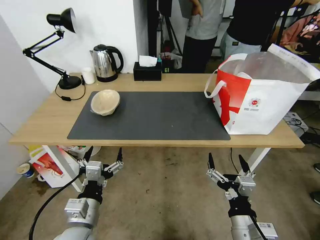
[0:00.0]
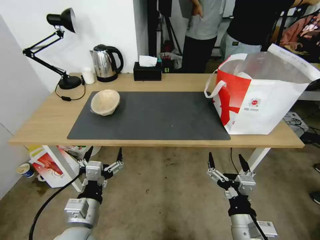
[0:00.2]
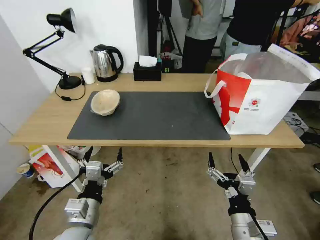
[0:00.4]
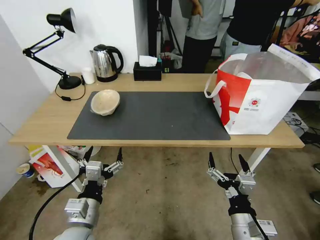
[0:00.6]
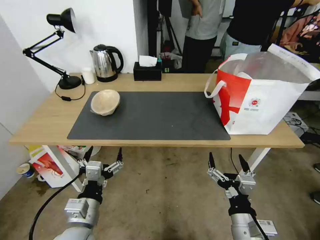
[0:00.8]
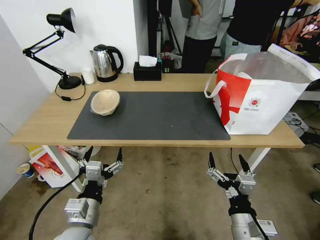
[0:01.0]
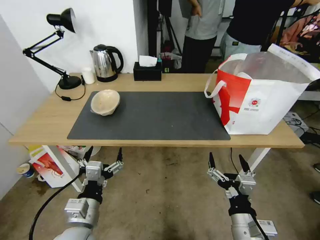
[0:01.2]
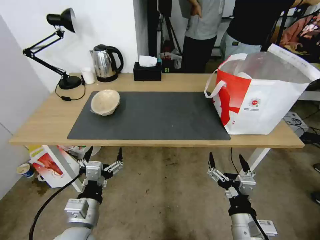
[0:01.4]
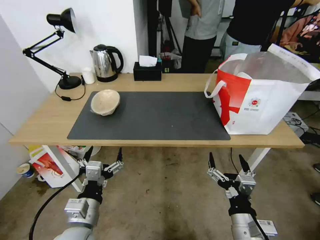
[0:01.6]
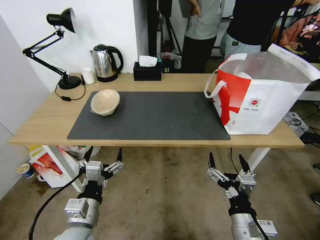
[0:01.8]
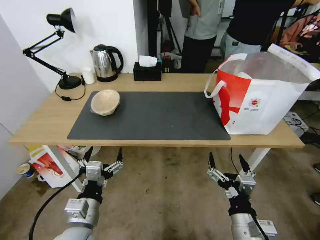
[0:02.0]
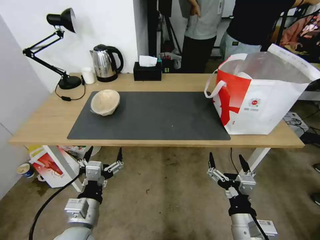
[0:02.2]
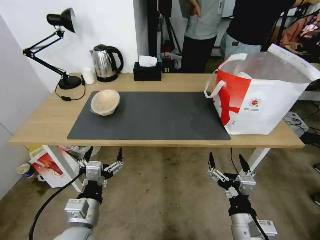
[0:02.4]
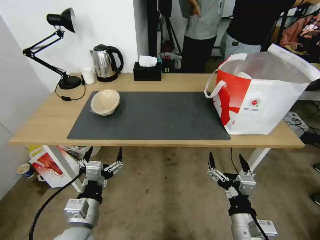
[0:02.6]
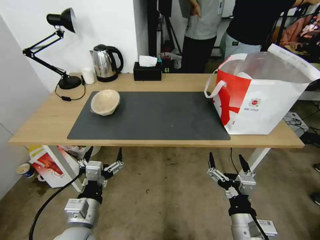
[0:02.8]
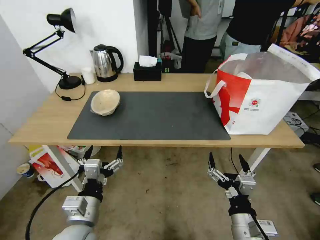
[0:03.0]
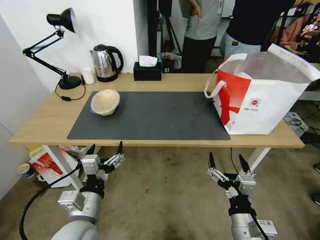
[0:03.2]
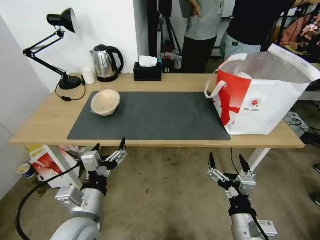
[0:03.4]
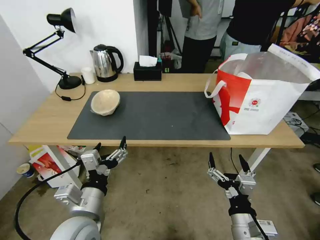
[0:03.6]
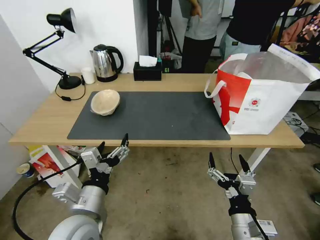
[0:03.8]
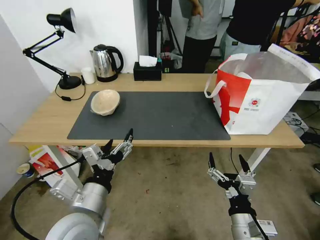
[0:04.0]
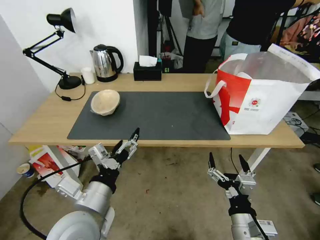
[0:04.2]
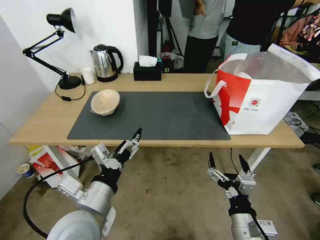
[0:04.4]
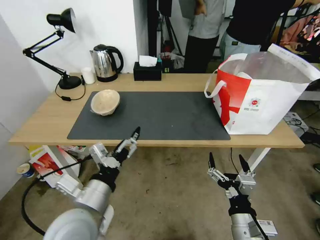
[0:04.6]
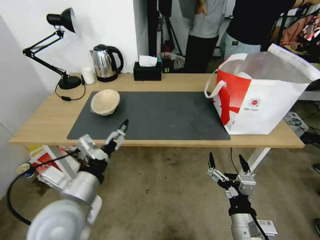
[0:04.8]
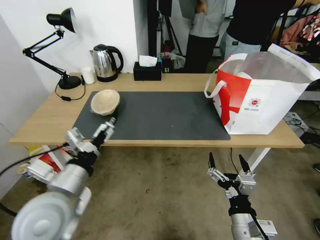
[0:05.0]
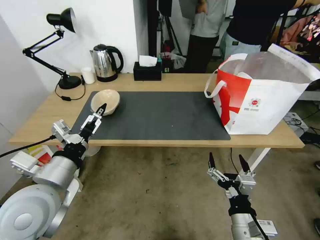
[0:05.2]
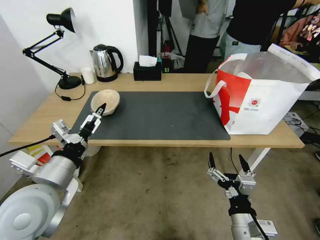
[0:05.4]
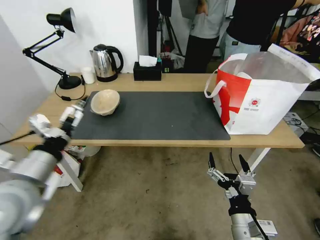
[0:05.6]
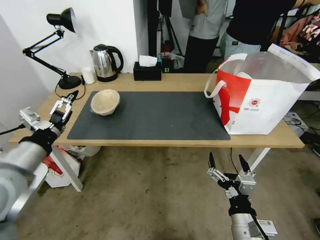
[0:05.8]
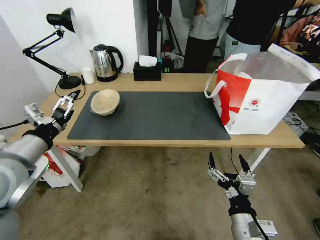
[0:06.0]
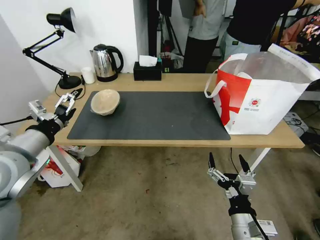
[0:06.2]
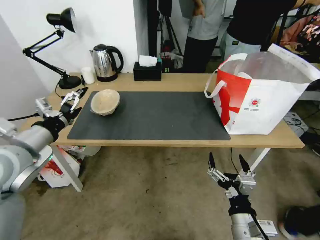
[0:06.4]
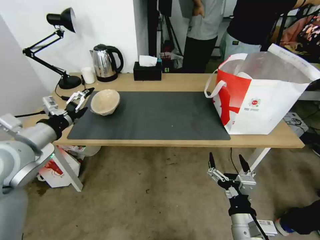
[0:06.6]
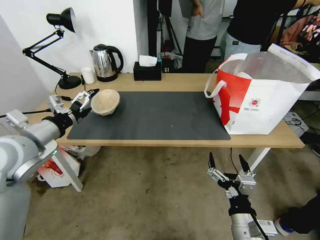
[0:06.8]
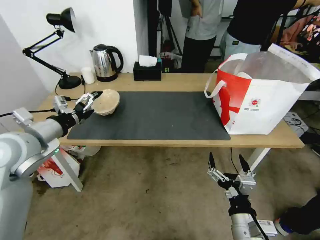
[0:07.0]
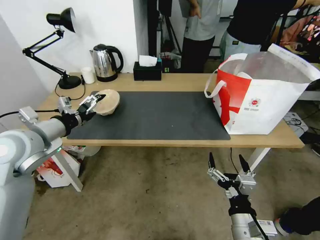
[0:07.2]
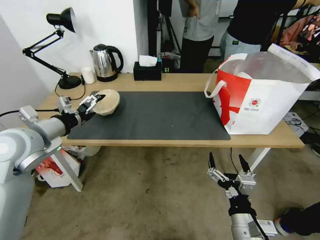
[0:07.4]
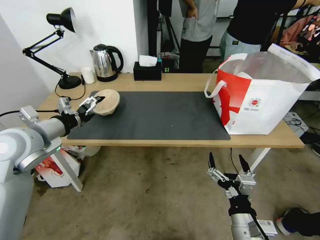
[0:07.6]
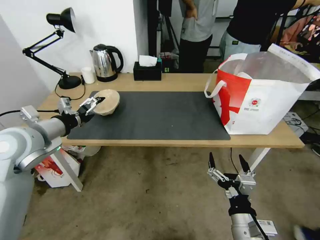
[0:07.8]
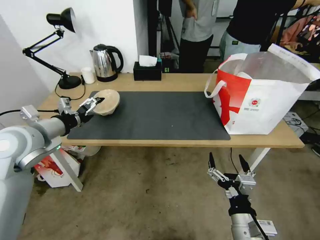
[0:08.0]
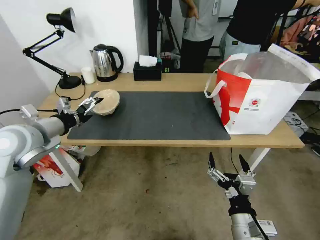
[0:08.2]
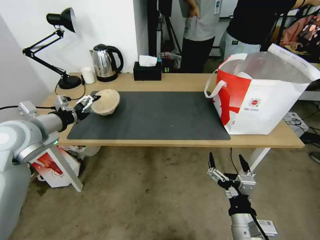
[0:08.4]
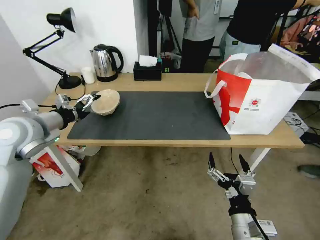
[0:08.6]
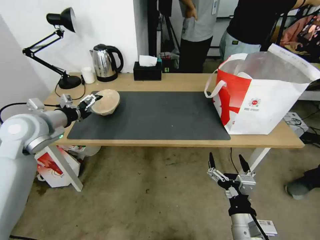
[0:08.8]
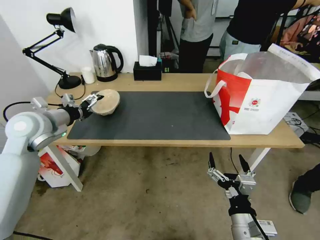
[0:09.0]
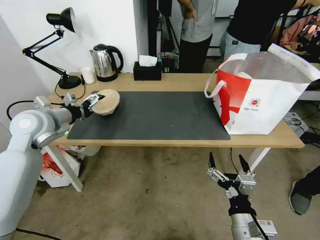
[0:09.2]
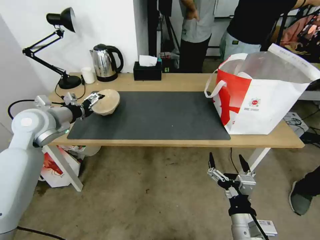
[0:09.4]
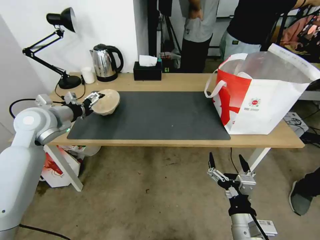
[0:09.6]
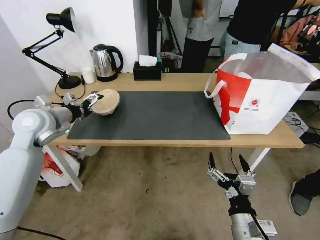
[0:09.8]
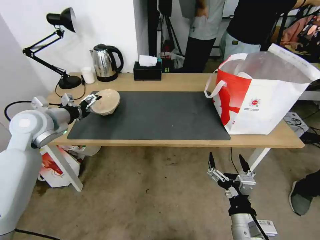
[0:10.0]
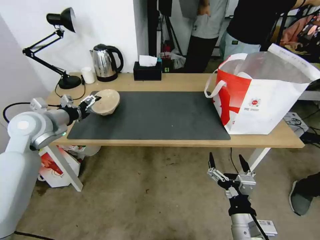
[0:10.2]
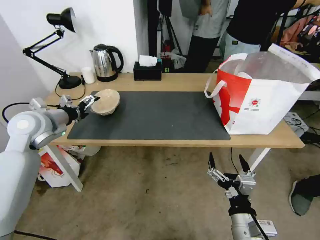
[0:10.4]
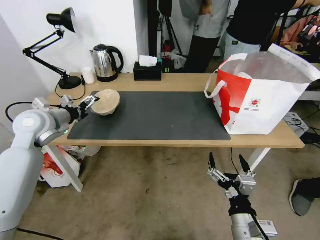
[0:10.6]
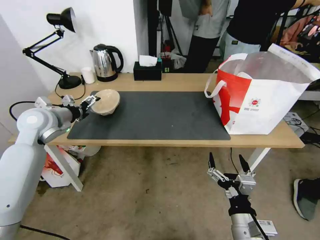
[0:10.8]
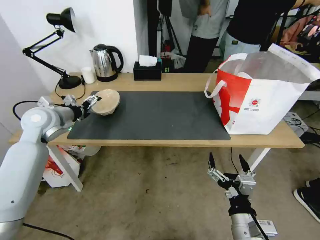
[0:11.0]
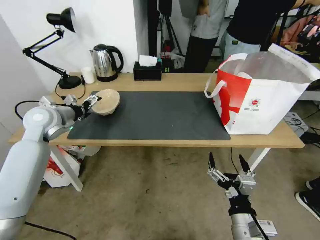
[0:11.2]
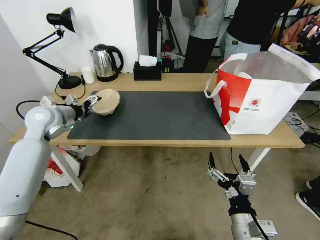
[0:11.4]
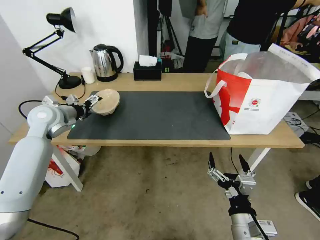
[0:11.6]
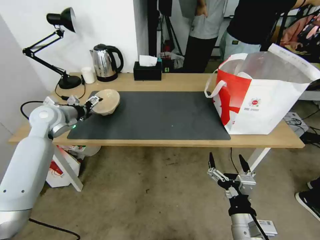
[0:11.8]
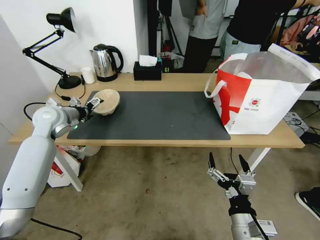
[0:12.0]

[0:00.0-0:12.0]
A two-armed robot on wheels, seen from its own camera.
Task of the whole recording: Pick up the trash from the table and place it into the takeout bag.
0:00.0 to 0:03.0: The two grippers keep their place.
0:03.0 to 0:04.4: The left gripper travels upward by roughly 10 cm.
0:04.4 to 0:06.0: The left gripper shifts approximately 20 cm to the left, upward and forward.
0:06.0 to 0:07.6: The left gripper is displaced forward by some 10 cm.
0:07.6 to 0:09.0: The left gripper goes about 5 cm forward.
0:09.0 to 0:10.4: The grippers move only a little.
0:10.4 to 0:12.0: The left gripper is displaced forward by roughly 5 cm.

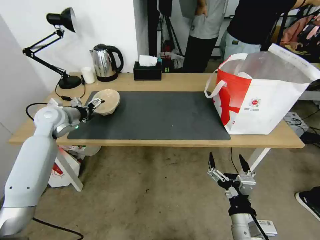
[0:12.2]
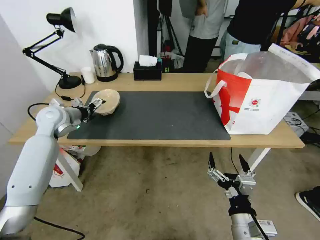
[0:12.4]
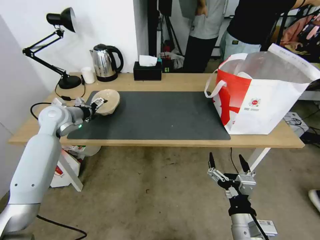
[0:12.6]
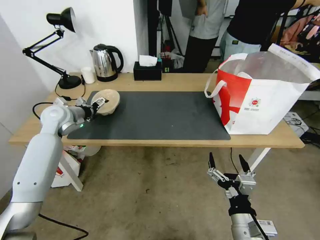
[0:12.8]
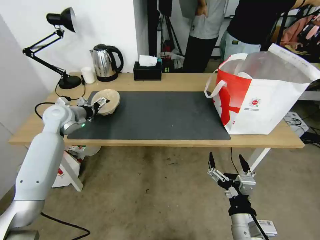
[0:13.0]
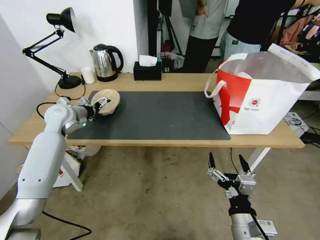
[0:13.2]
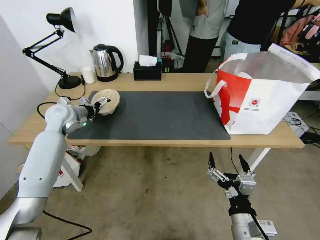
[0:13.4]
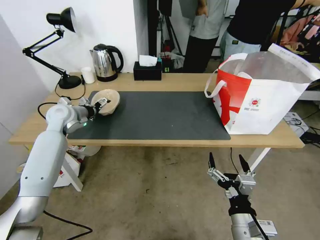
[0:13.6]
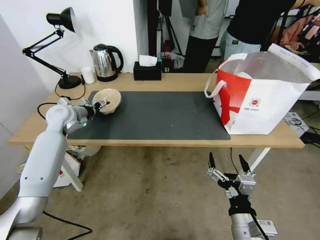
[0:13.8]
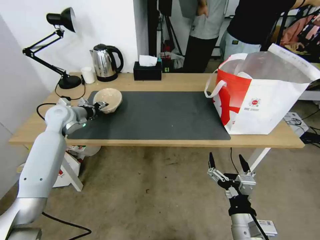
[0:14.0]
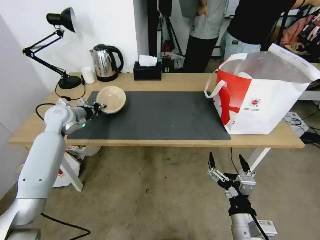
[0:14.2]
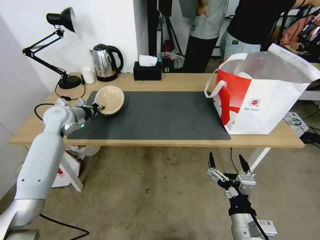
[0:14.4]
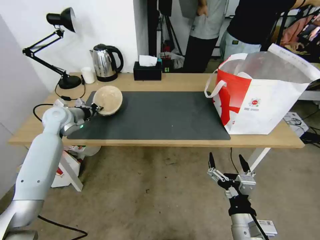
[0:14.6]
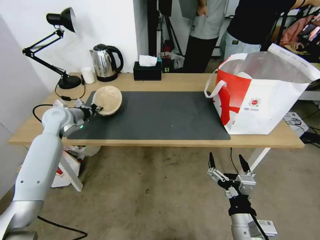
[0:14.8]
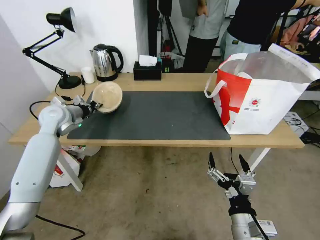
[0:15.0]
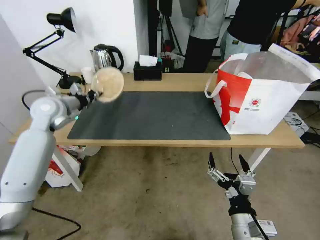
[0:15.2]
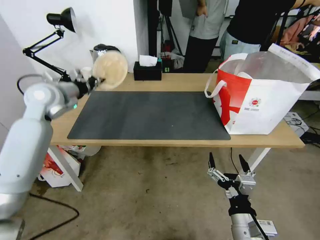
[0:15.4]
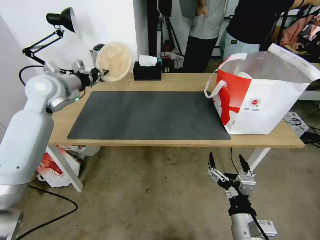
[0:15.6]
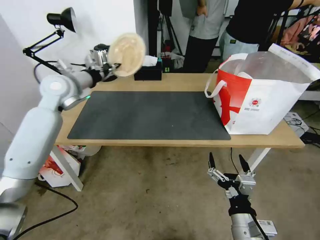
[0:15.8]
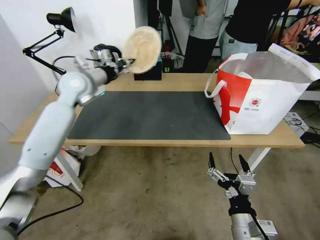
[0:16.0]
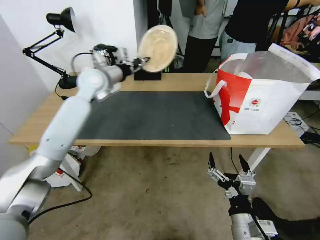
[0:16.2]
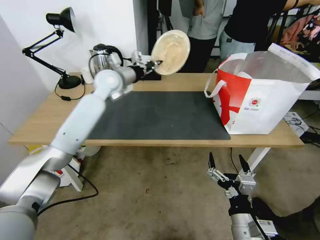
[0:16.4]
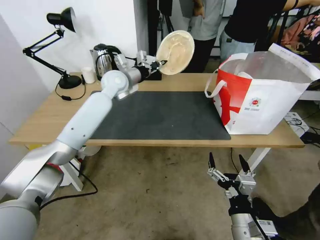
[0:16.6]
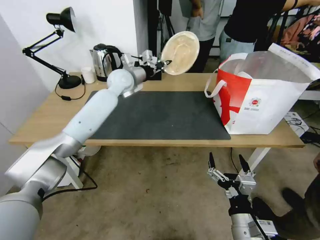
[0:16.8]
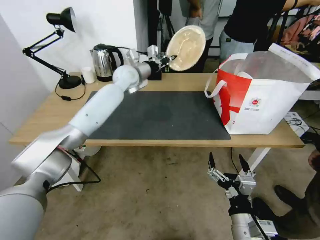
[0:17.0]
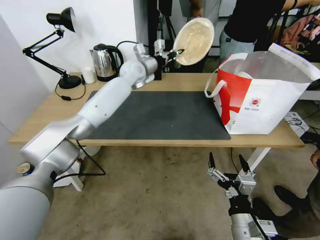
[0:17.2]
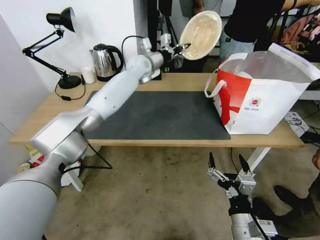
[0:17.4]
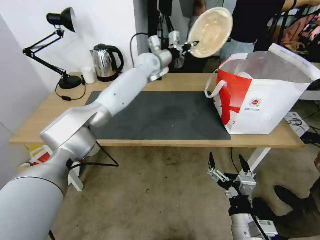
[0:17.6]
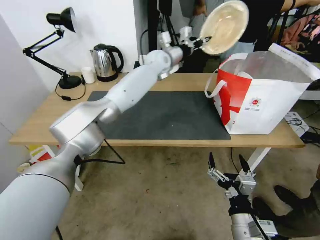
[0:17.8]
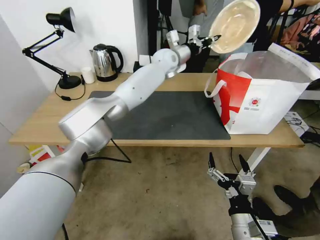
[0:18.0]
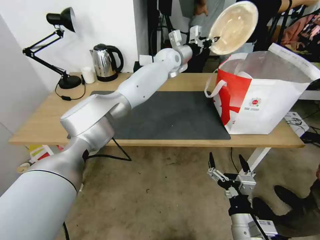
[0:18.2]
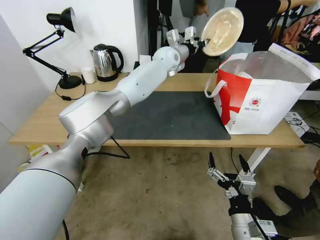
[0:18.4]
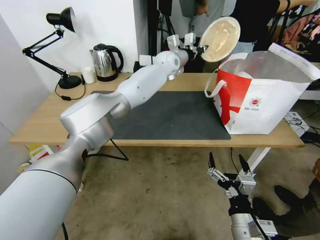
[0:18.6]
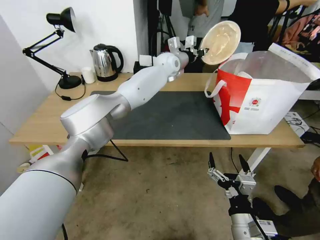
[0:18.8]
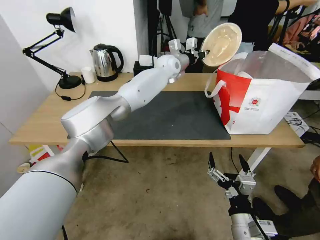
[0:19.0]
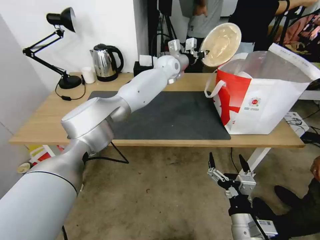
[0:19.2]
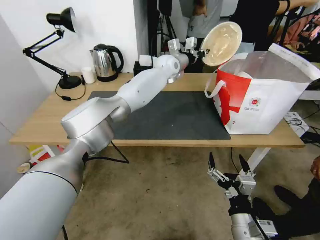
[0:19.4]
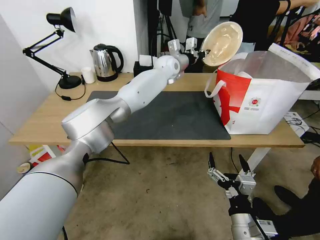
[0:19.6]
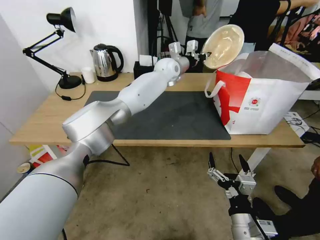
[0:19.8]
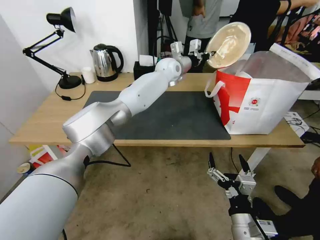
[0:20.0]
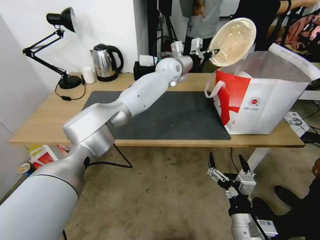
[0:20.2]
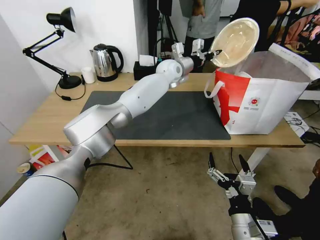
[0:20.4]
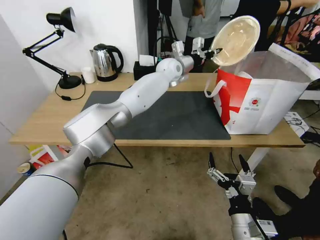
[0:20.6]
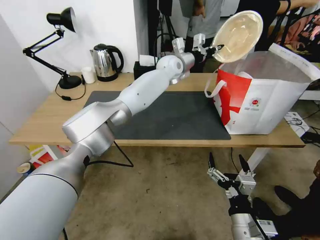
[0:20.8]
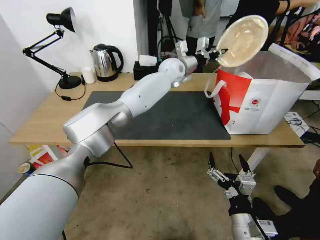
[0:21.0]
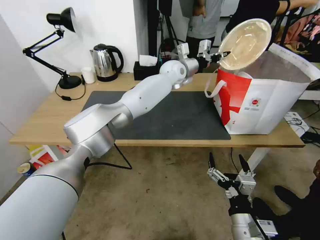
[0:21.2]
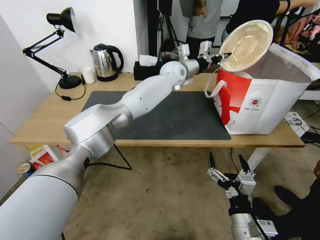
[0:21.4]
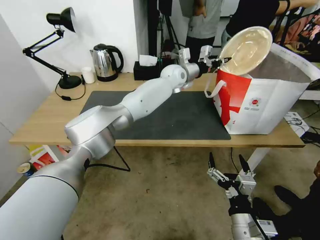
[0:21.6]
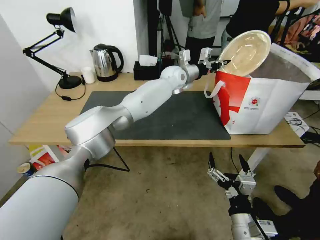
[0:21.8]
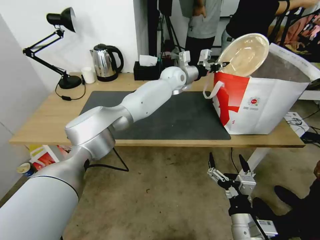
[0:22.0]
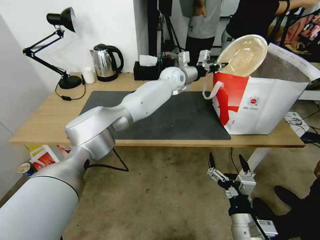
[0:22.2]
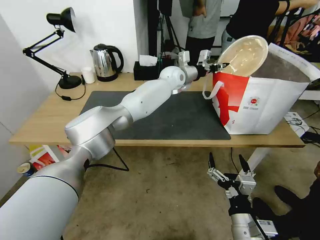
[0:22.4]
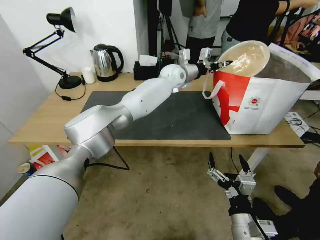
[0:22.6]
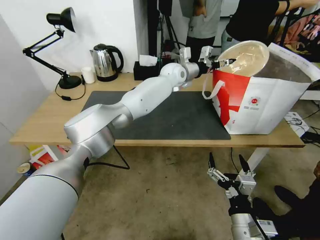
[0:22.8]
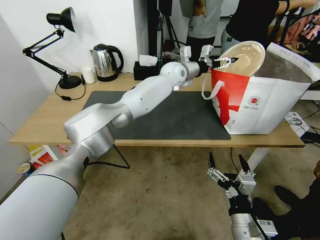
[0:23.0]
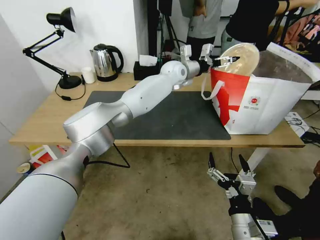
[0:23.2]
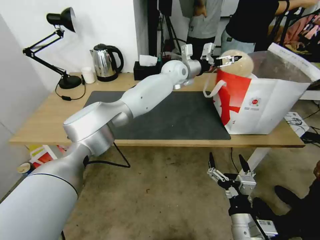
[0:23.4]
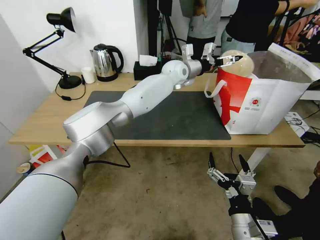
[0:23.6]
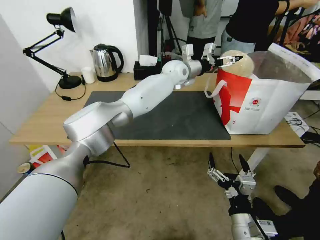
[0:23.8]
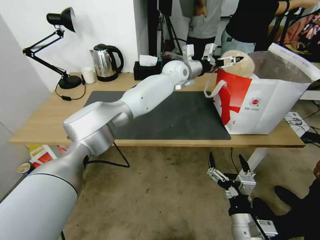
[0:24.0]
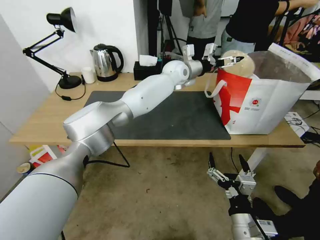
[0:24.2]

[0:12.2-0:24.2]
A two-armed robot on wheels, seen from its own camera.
Task of the whole recording: Pick up the trash from the table and place it into the takeout bag.
0:12.2 to 0:13.8: There are only small adjustments of the grippers.
0:13.8 to 0:15.2: The left gripper closes its fingers.
0:15.2 to 0:16.6: The left gripper goes about 25 cm to the right and forward.
0:16.6 to 0:18.2: The left gripper is displaced to the right and forward by about 20 cm.
0:18.2 to 0:21.2: The grippers move only a little.
0:21.2 to 0:22.6: The grippers move only a little.
0:22.6 to 0:24.2: The left gripper opens up.
